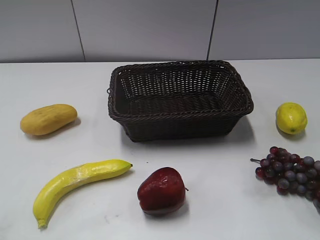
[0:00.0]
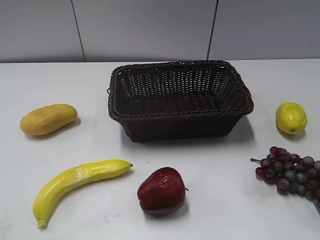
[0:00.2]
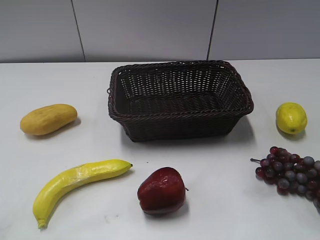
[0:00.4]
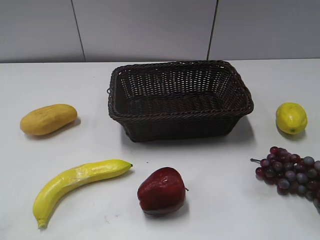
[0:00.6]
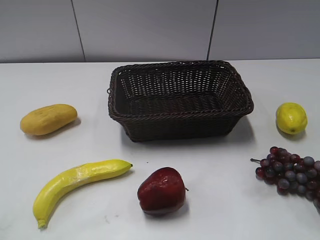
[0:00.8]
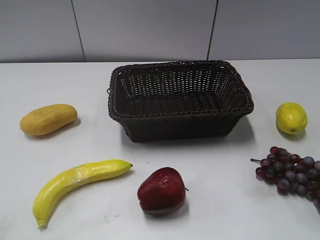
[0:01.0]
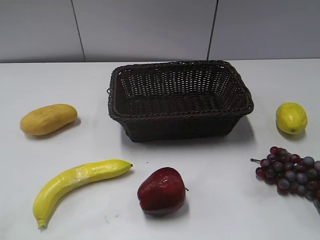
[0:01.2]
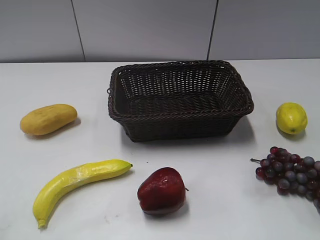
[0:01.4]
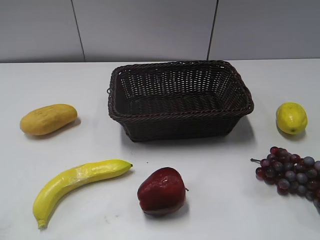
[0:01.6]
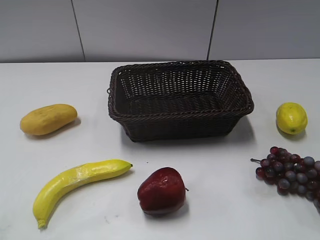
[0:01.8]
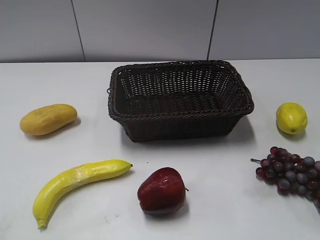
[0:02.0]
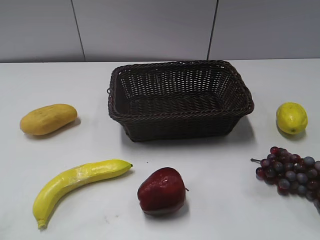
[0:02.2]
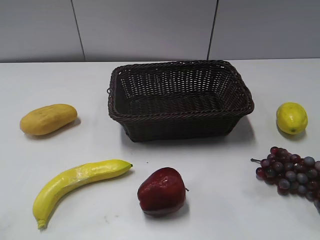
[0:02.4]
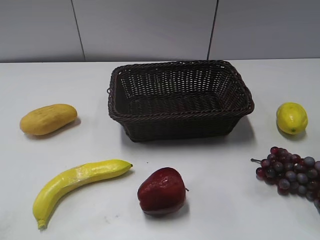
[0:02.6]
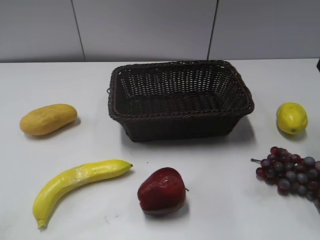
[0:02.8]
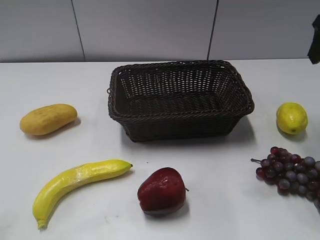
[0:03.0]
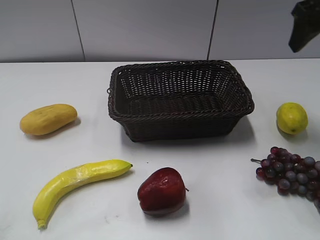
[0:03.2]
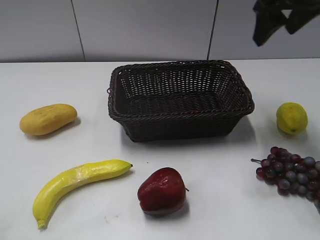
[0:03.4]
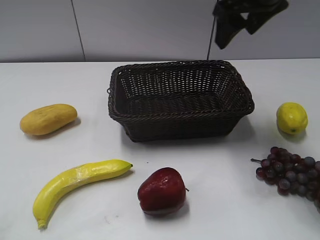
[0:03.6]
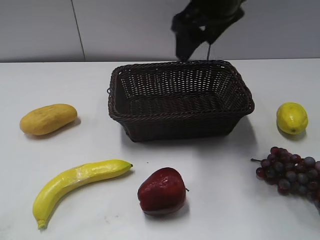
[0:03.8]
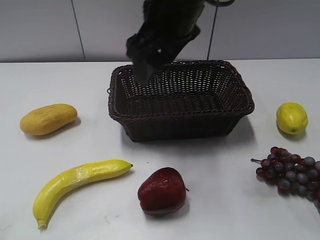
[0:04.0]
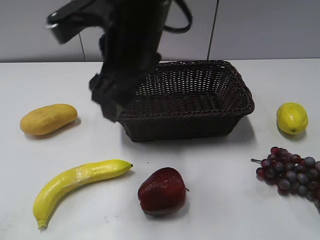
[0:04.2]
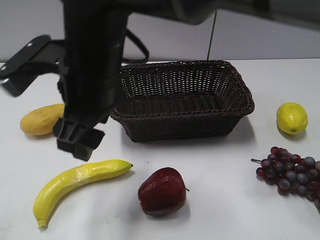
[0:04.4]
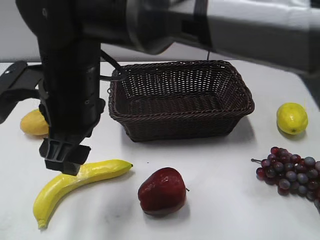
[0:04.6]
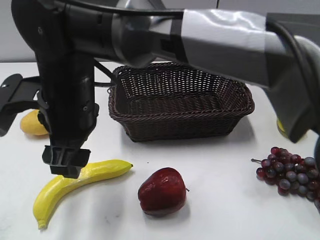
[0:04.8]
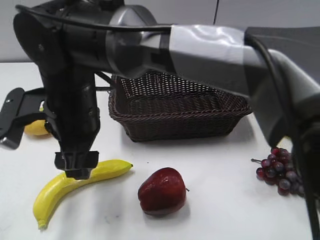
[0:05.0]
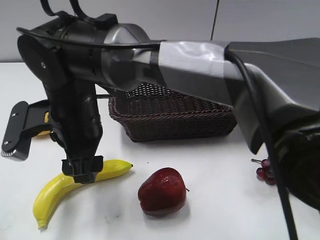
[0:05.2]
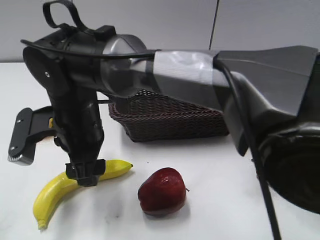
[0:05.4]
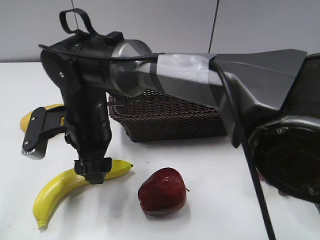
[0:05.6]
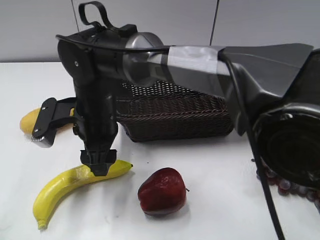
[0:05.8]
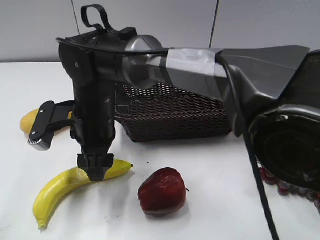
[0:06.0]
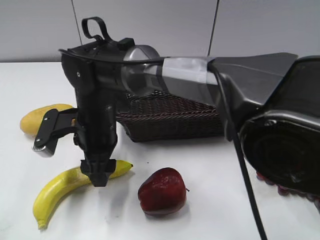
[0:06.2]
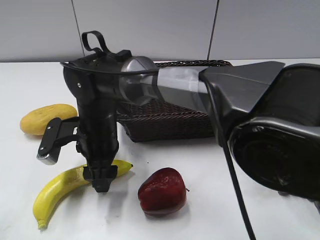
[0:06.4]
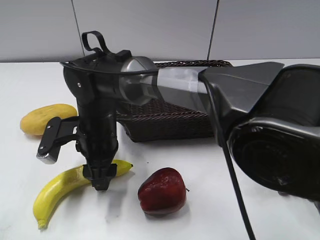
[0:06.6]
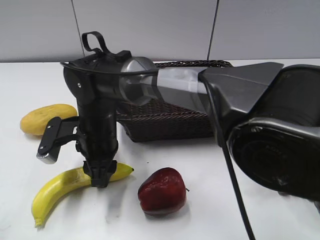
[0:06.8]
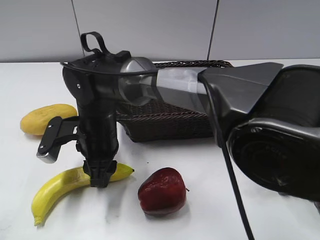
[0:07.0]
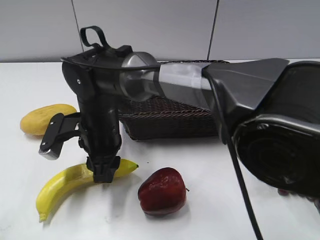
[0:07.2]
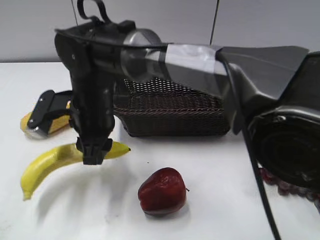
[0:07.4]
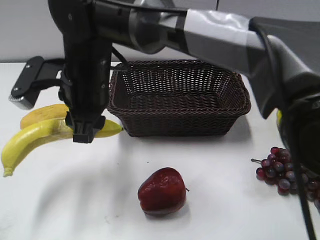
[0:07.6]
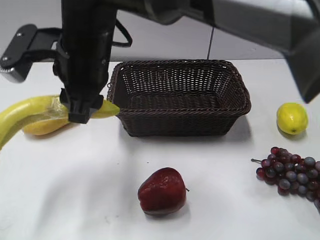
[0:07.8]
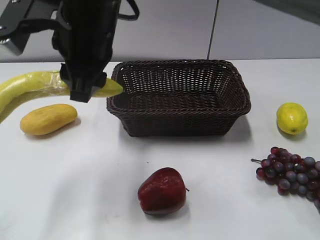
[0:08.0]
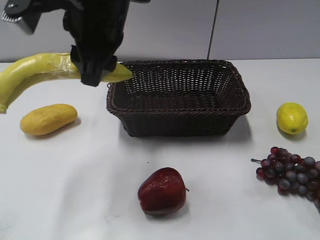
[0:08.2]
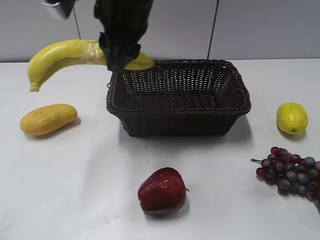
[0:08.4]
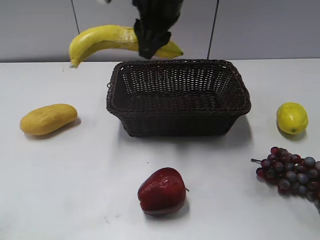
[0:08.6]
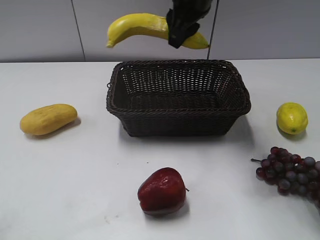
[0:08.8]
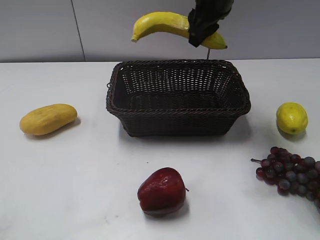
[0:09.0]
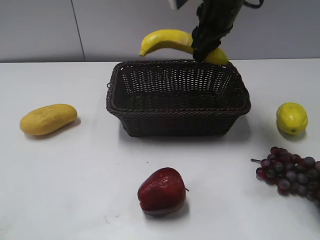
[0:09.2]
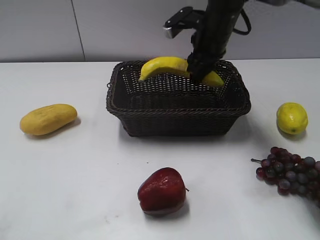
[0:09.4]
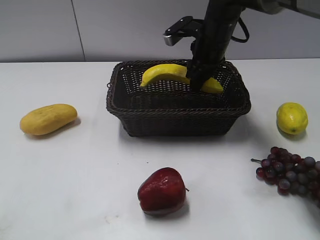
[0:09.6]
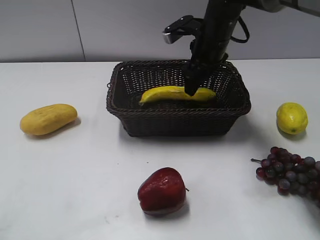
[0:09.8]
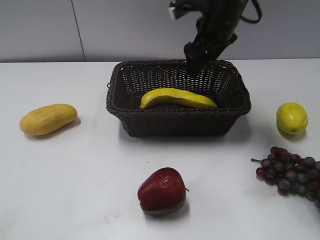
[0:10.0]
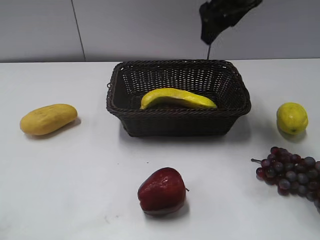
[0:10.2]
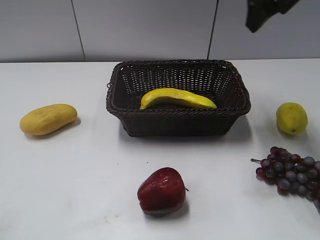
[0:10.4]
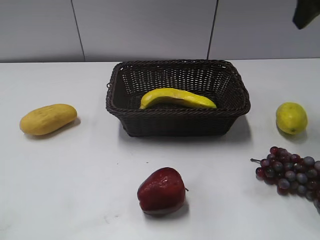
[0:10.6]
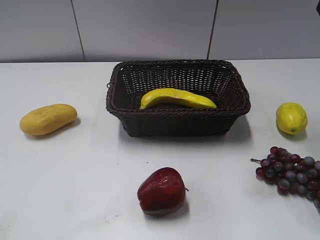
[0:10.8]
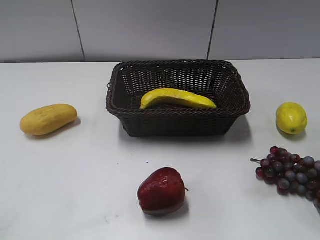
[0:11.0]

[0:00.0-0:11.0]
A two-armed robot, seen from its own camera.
Step, 0:02.8 to 0:07.2: Grasp the banana with right gripper.
Step, 0:07.4 to 0:10.2: Place the banana in the basket with right gripper.
0:01.6 to 0:03.2: The right gripper shifts about 30 cm forward.
0:03.2 to 0:04.8: The right gripper heads to the left, covering some 35 cm; the left gripper opens.
0:04.8 to 0:06.2: The right gripper heads downward, covering roughly 10 cm.
0:06.2 to 0:07.8: The right gripper travels upward by approximately 15 cm, and closes up.
0:07.8 to 0:09.4: The right gripper goes approximately 25 cm to the right and forward.
0:09.4 to 0:11.0: The right gripper goes approximately 30 cm upward, backward and to the right, and opens its fingers.

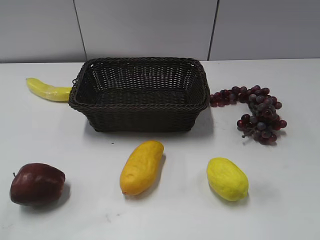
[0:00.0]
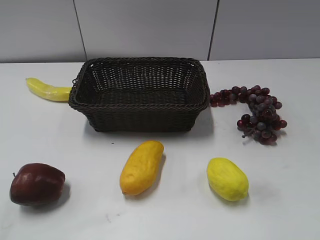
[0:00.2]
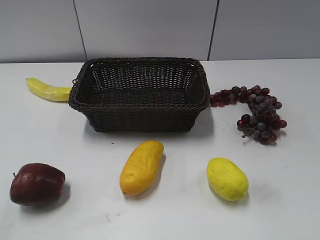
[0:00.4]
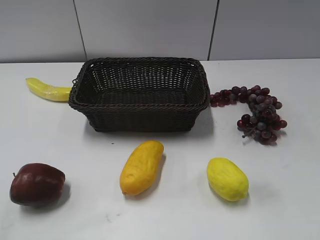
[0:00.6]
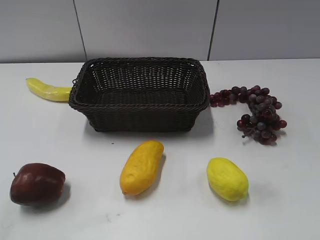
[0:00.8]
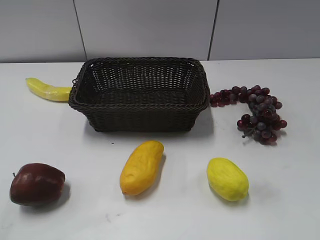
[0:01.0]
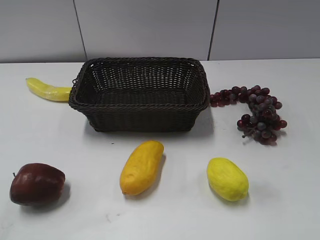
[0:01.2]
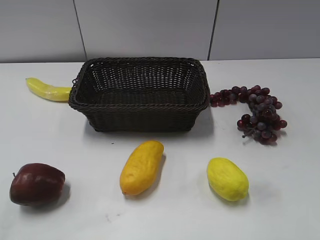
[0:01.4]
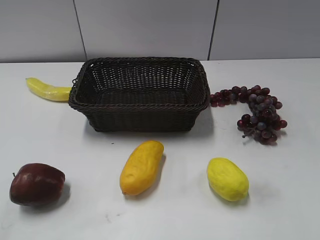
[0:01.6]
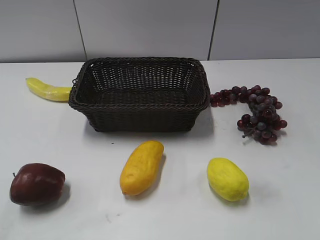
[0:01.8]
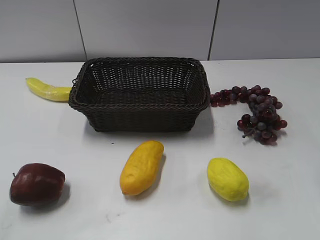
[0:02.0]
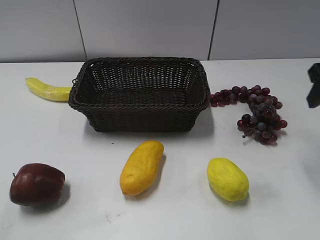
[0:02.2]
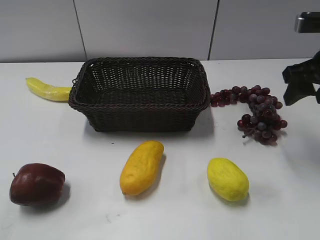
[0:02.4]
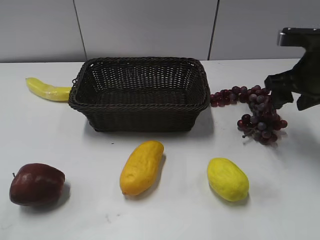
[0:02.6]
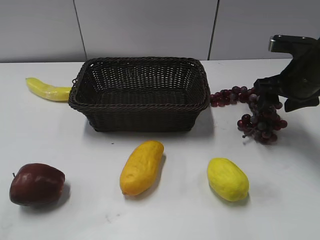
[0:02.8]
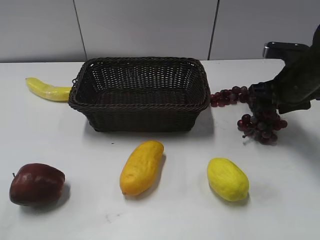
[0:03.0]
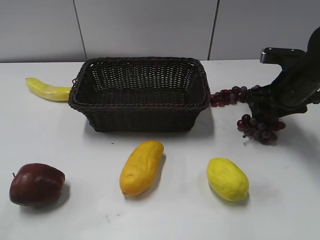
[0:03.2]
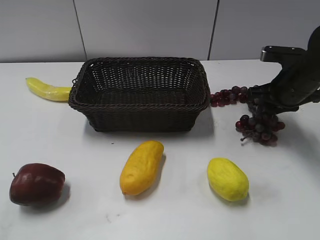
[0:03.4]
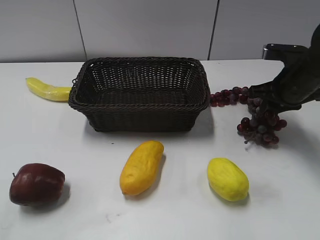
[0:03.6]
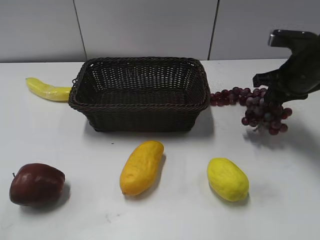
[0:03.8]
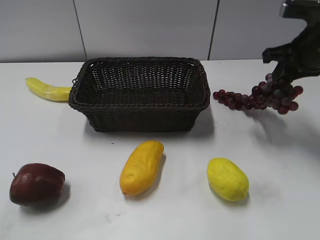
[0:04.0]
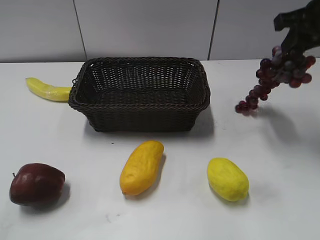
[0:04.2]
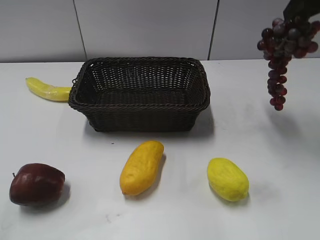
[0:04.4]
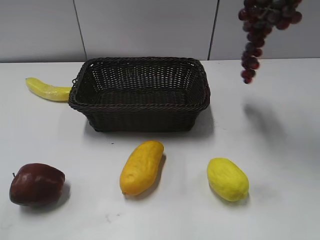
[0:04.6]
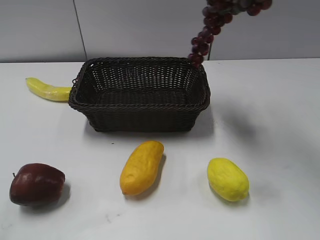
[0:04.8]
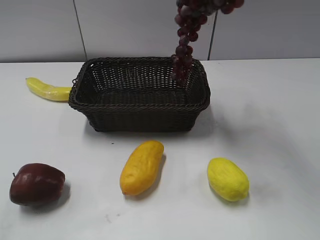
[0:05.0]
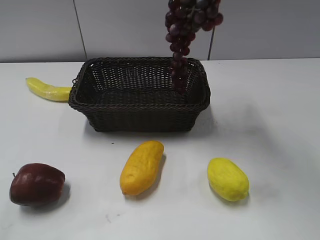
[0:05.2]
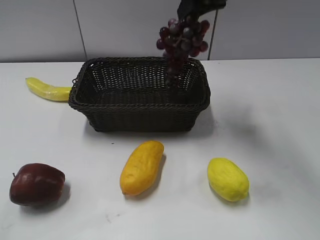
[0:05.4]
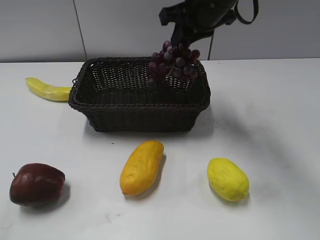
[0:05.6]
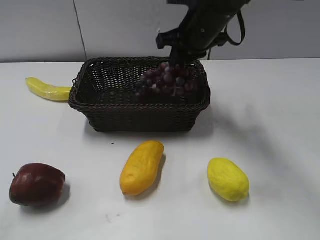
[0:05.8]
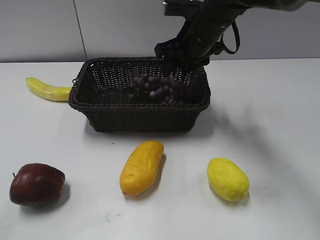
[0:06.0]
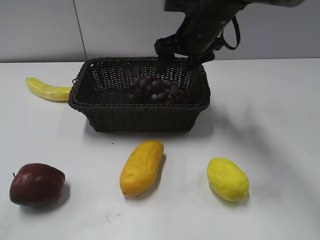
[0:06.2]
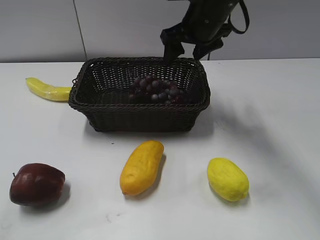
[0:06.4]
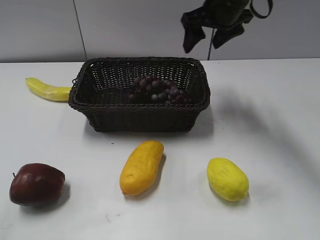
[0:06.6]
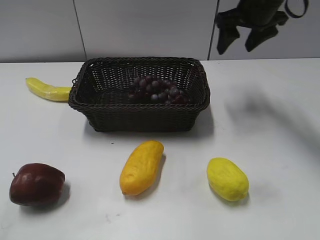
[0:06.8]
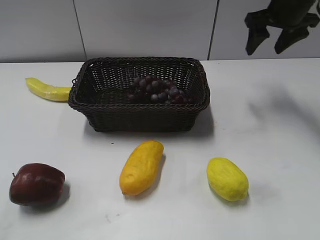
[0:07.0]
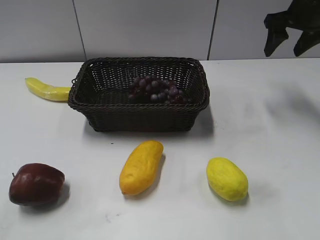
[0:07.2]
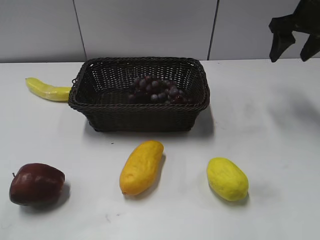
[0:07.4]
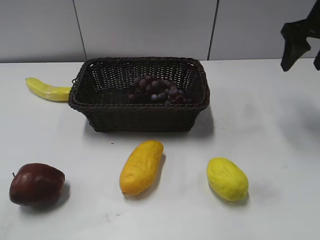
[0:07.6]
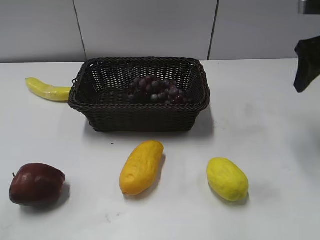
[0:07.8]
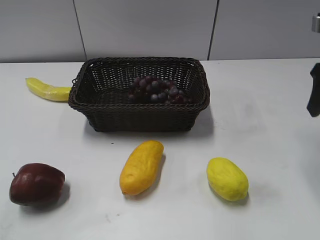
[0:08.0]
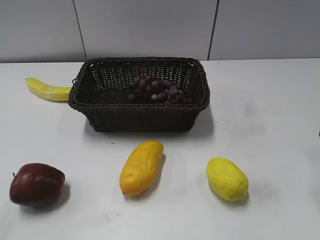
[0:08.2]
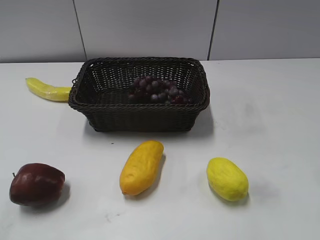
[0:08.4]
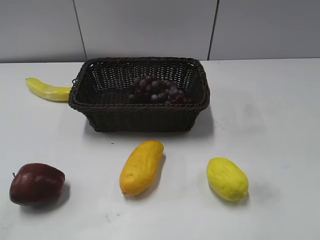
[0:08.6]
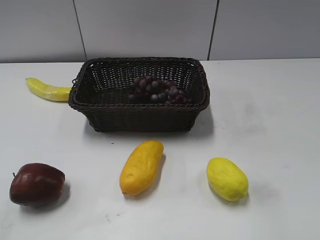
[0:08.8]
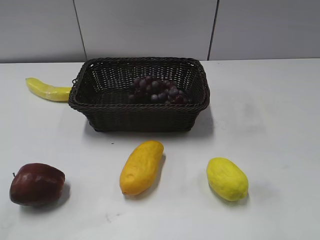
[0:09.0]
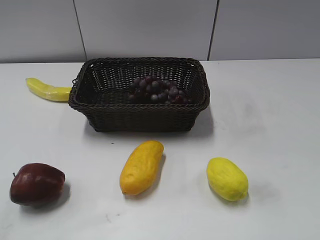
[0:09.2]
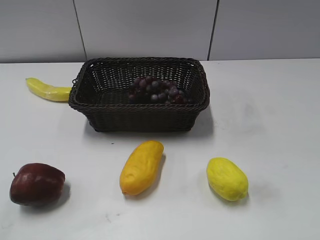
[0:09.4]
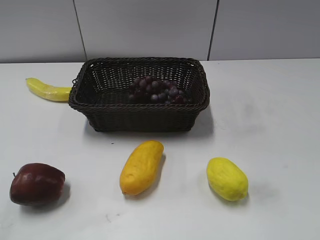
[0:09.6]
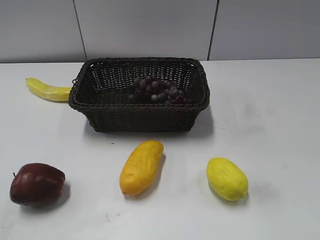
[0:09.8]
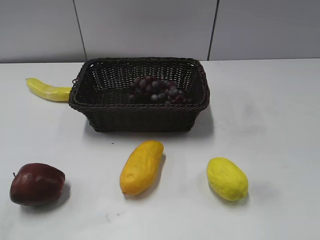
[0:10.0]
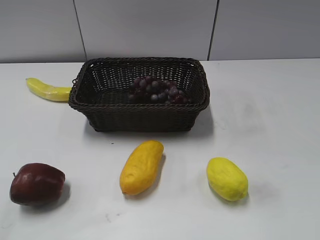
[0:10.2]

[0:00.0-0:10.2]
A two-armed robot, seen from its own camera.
Step, 0:02.2 to 0:04.0: Grasp the grape with right gripper.
Step, 0:04.2 to 0:06.2: Place the grape in the basket with right gripper.
0:01.4 to 0:03.0: The right gripper shifts roughly 30 cm forward and downward.
0:03.0 to 0:04.4: The right gripper moves upward, approximately 20 cm, and closes up.
0:04.4 to 0:05.8: The right gripper moves to the left, downward and forward, about 20 cm.
0:05.8 to 0:07.2: The right gripper moves to the right, roughly 20 cm, and opens.
0:07.2 to 0:08.8: The right gripper is displaced backward by some 35 cm.

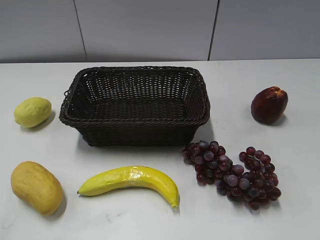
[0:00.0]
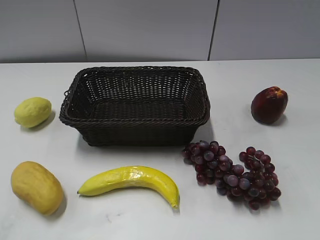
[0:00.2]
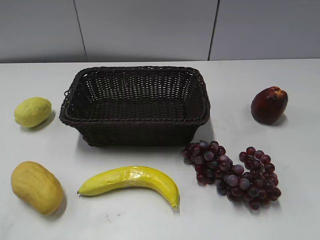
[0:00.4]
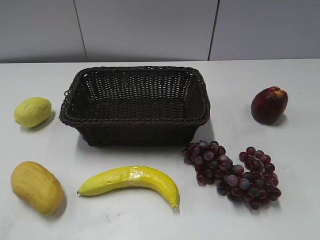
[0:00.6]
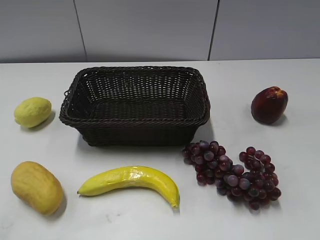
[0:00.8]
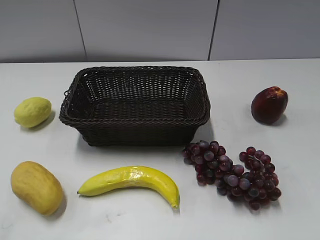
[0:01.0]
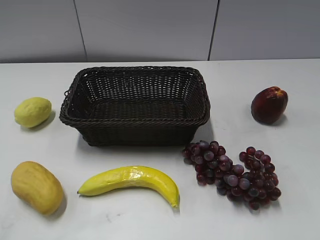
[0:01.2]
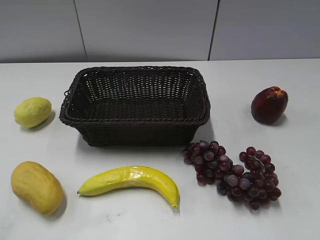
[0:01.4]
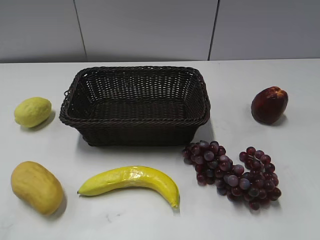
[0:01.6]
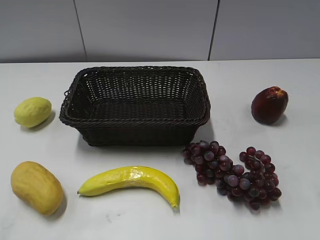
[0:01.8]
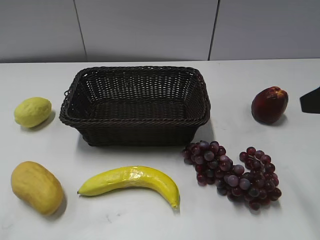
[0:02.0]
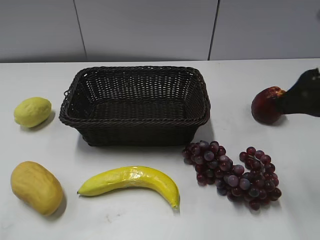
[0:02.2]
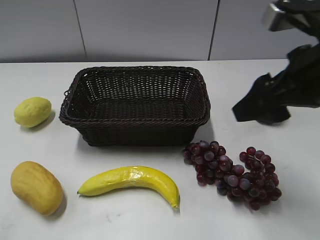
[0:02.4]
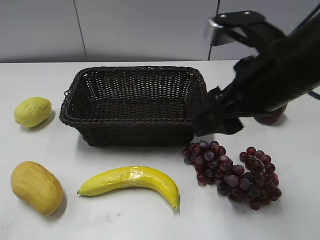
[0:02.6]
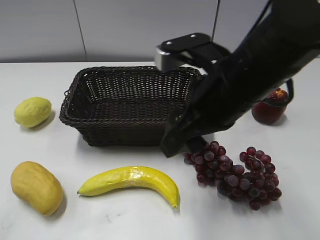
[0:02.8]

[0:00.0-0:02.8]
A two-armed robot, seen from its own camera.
0:01.4 to 0:02.8: The right gripper is displaced to the left and forward by roughly 25 cm.
